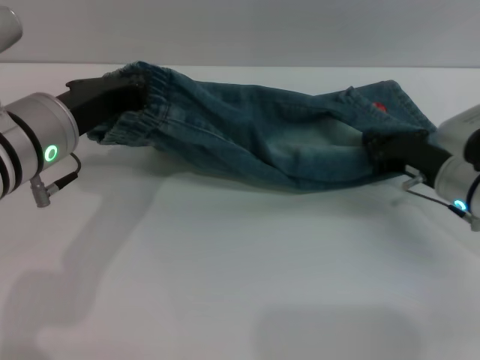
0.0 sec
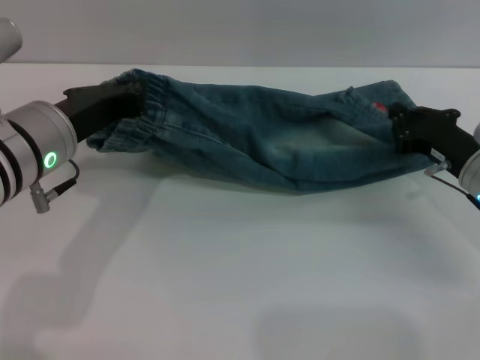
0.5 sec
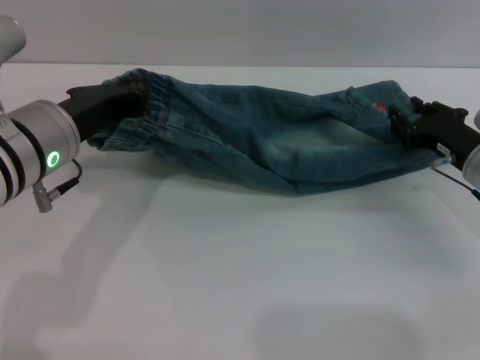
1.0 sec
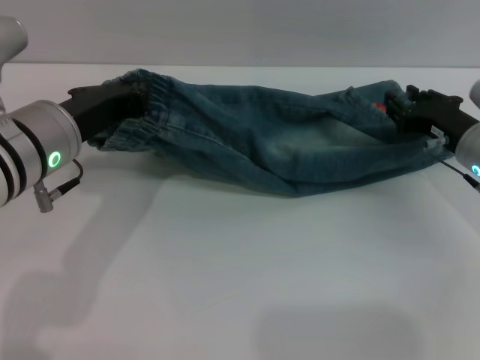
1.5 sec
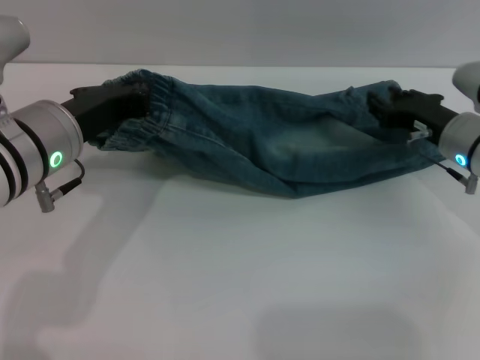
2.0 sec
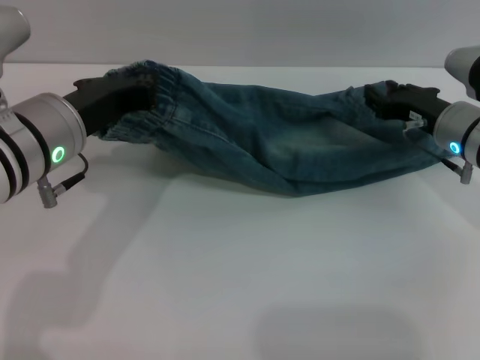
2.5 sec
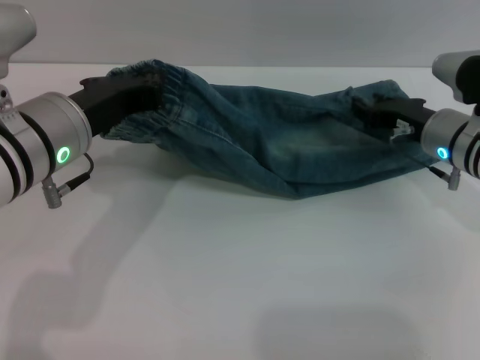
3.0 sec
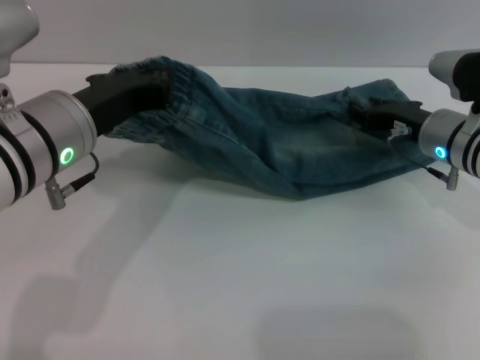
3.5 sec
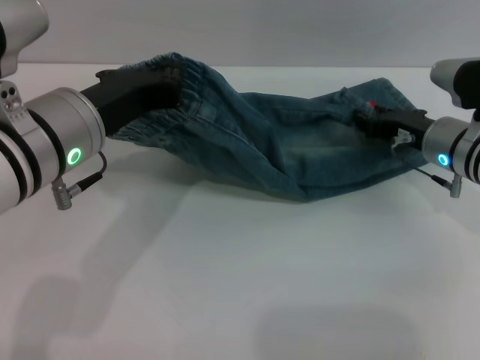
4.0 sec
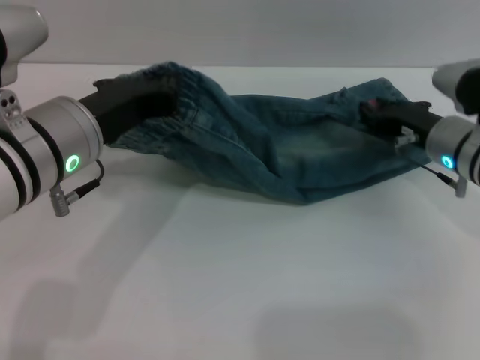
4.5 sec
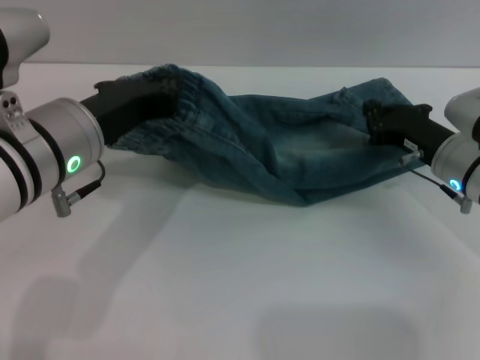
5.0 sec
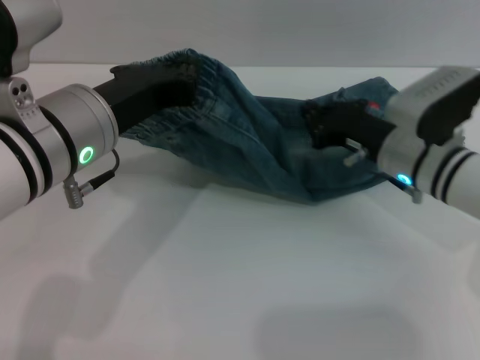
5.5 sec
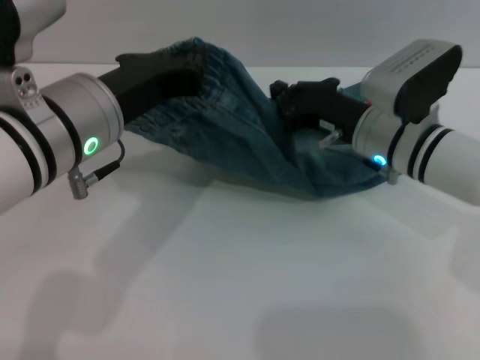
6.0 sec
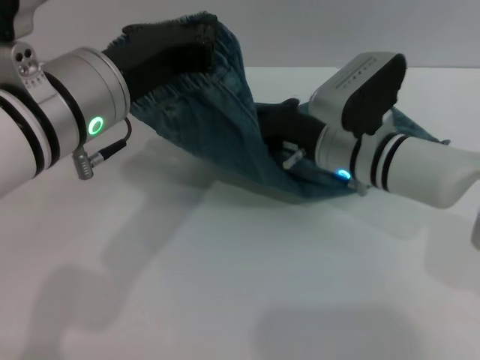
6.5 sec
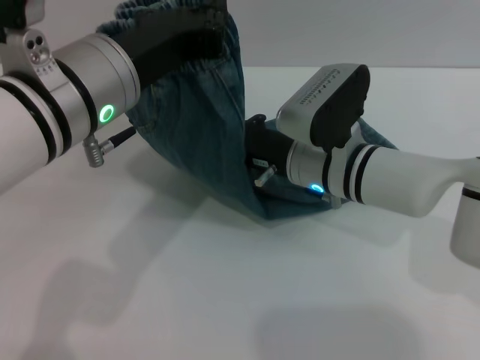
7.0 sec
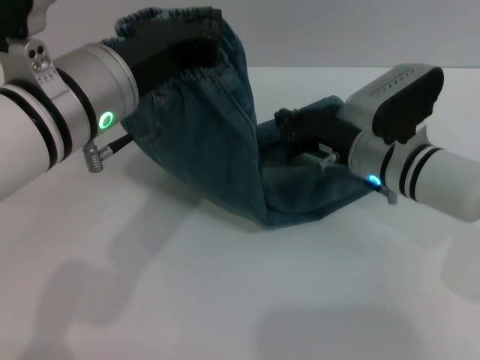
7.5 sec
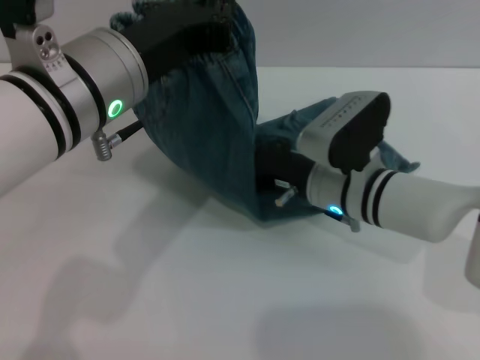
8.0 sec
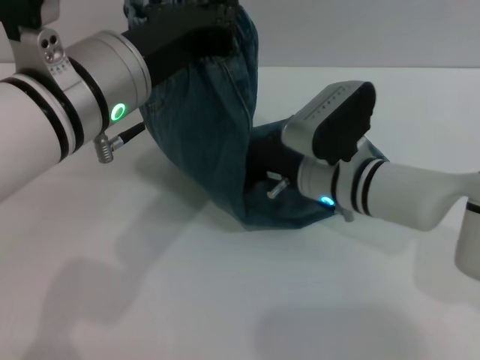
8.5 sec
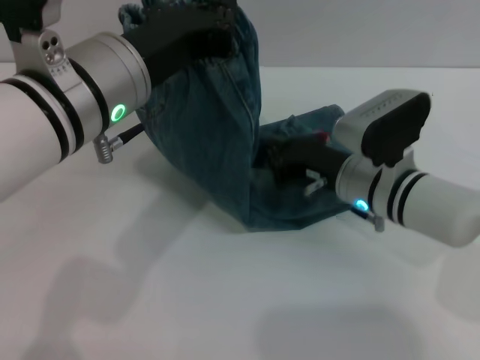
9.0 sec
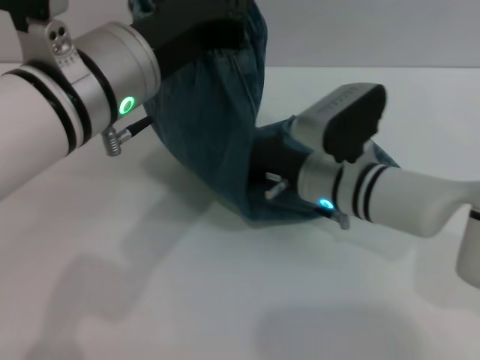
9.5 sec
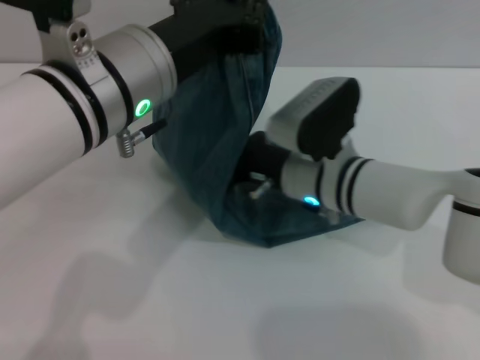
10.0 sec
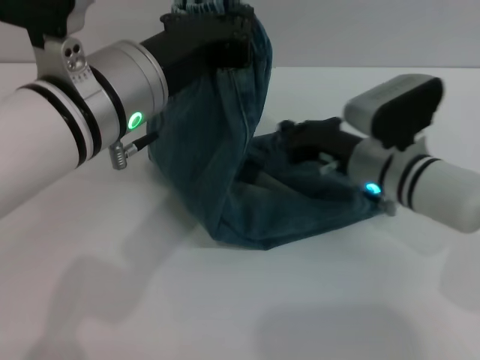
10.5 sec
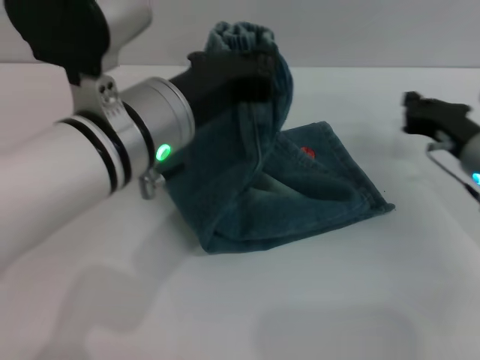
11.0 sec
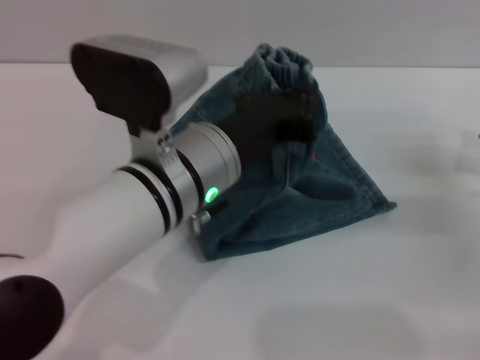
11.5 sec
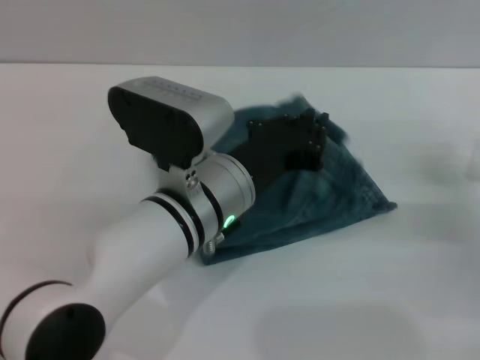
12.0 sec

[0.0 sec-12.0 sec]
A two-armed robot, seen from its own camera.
0.0 sec to 4.0 sec: The grippers make only small movements.
4.0 sec to 6.0 sec: The right gripper travels to the left by roughly 10 cm, and closes up.
6.0 sec to 8.0 sec: The right gripper swings left and right, some 5 cm each way, with 2 reversals.
10.0 sec to 12.0 sec: The right gripper shifts roughly 25 cm to the right, while the left gripper heads downward and to the right, covering approximately 10 cm.

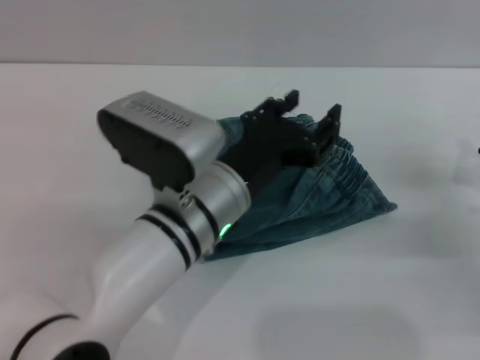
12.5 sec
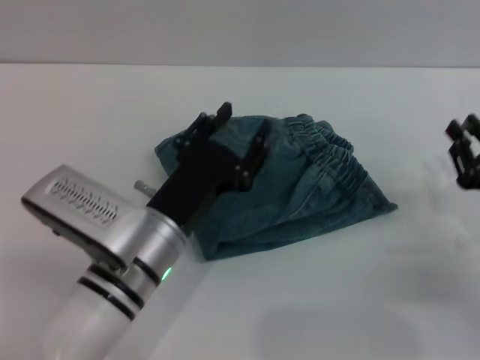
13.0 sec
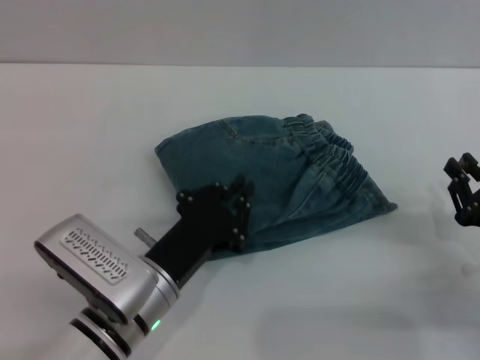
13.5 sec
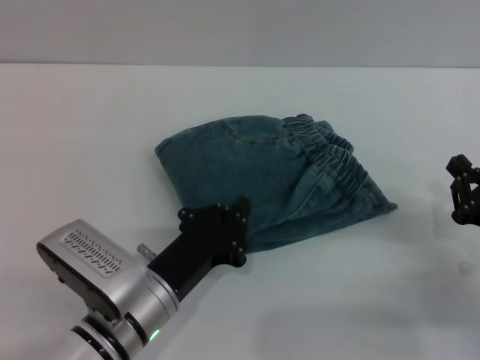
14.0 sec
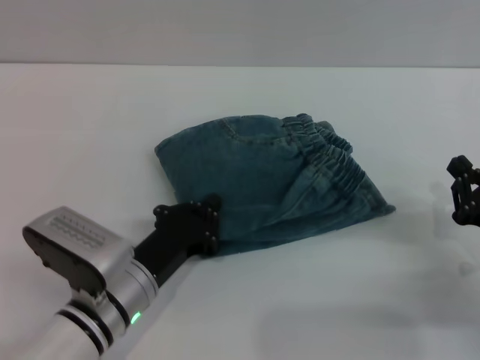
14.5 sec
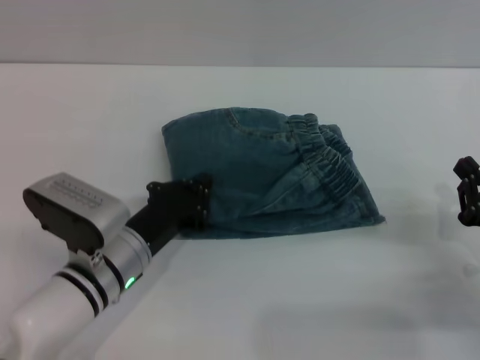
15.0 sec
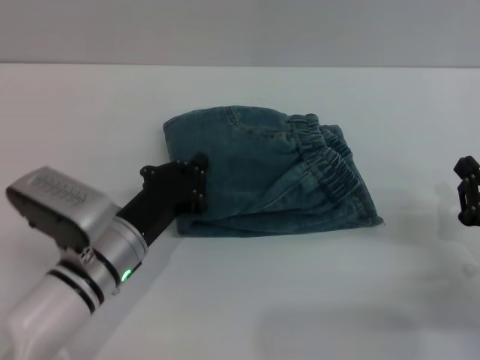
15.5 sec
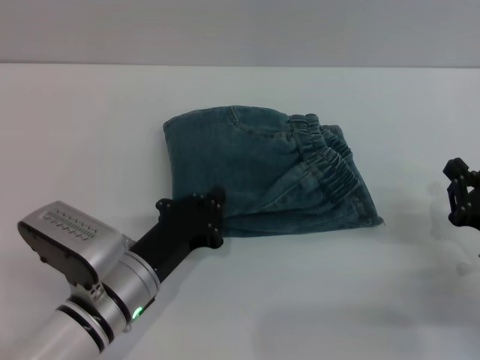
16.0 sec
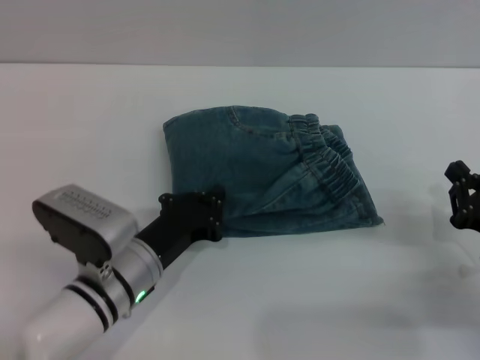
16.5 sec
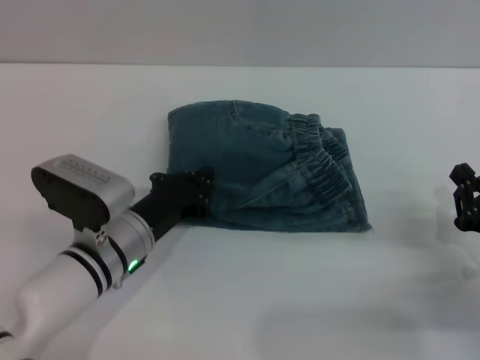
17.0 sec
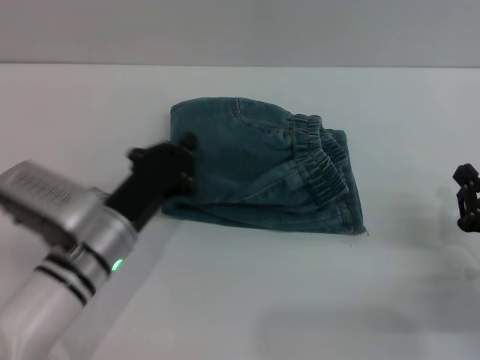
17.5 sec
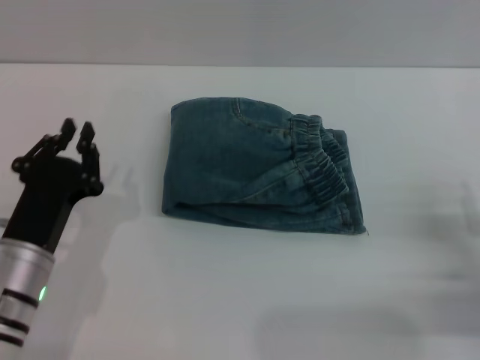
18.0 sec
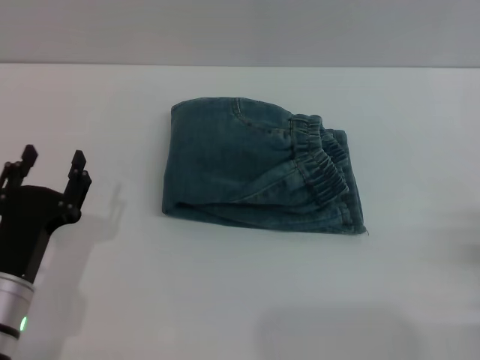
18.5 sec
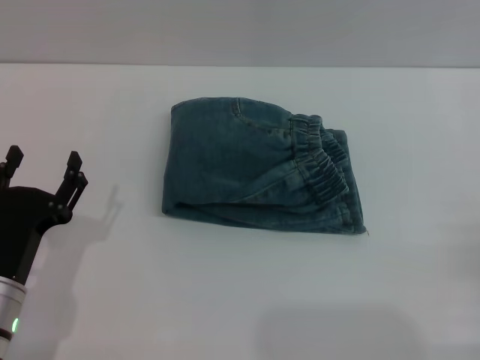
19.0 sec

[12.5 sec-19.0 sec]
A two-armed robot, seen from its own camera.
Step, 12.5 sec to 17.0 sec: Place the folded trousers onto the center area with the left grippers.
12.5 sec to 14.5 sec: The right gripper heads backward, covering about 5 cm. The left gripper moves downward and to the left, about 15 cm, and closes up.
14.5 sec to 17.0 sec: The left gripper moves forward, approximately 5 cm.
17.0 sec to 19.0 sec: The right gripper moves backward and to the right, about 10 cm, and opens up. The left gripper is displaced backward and to the left by approximately 10 cm, and opens.
